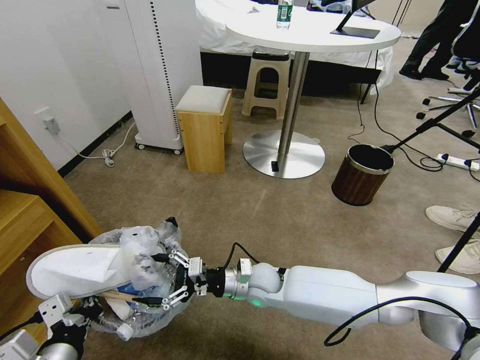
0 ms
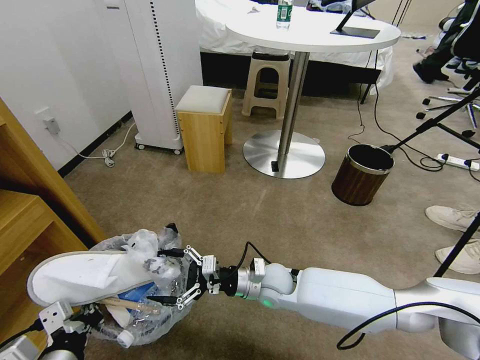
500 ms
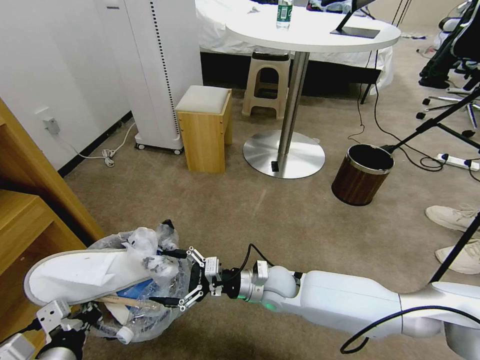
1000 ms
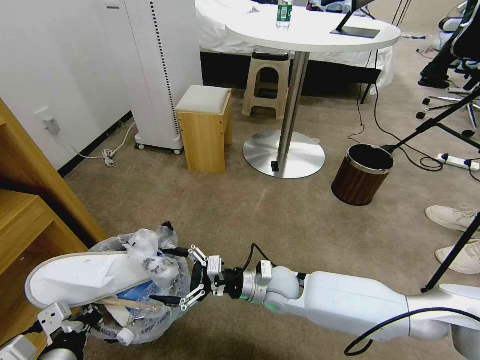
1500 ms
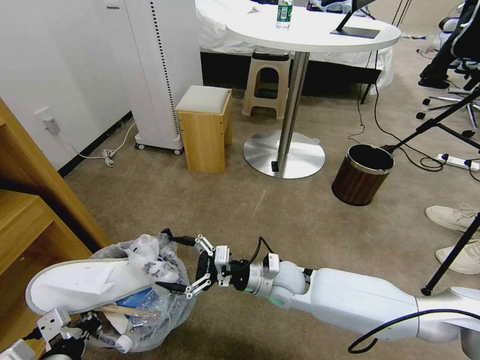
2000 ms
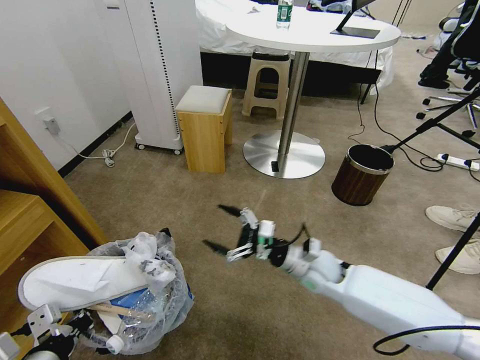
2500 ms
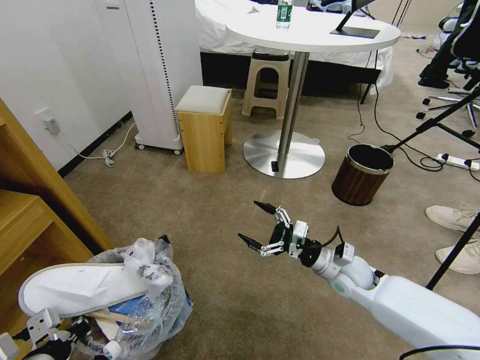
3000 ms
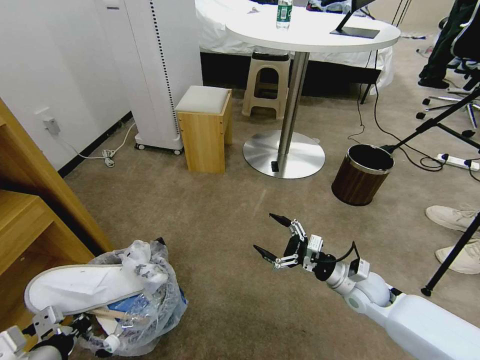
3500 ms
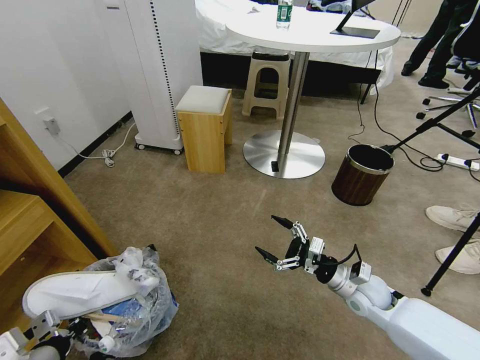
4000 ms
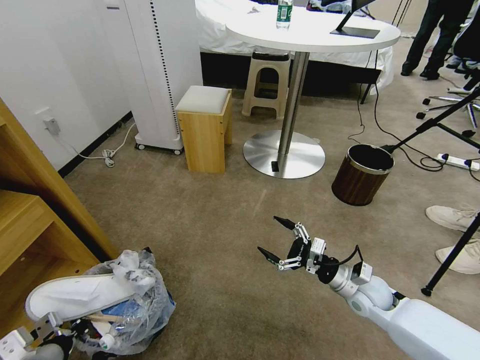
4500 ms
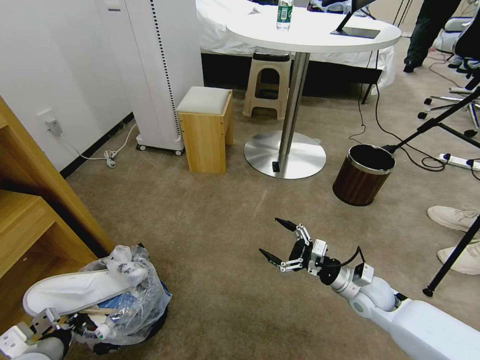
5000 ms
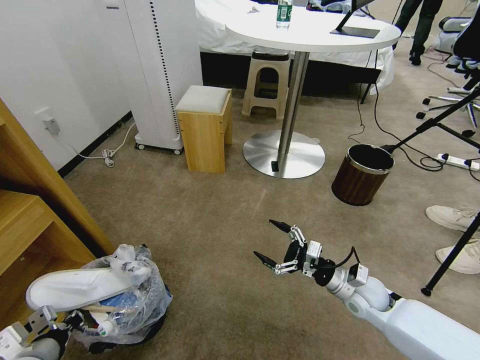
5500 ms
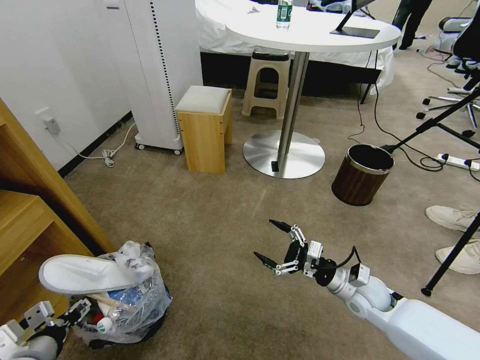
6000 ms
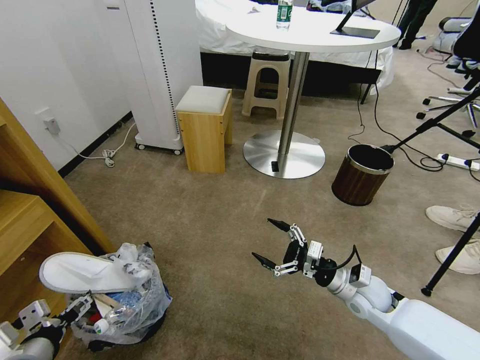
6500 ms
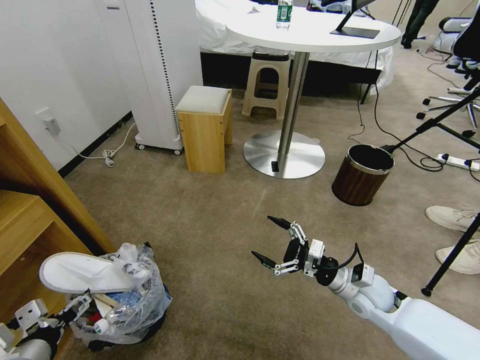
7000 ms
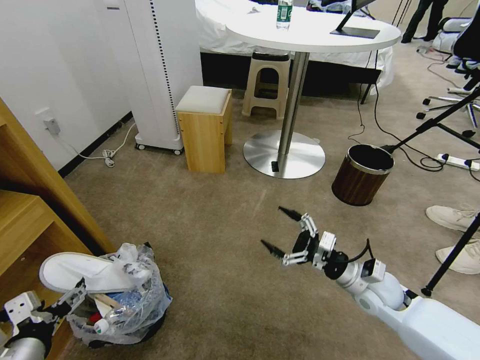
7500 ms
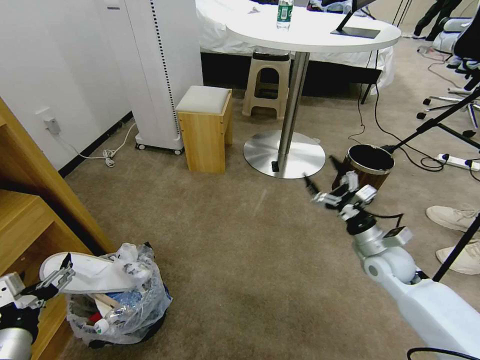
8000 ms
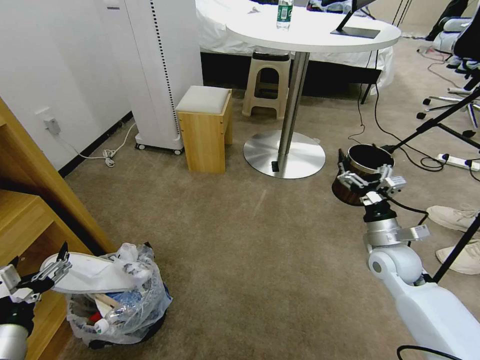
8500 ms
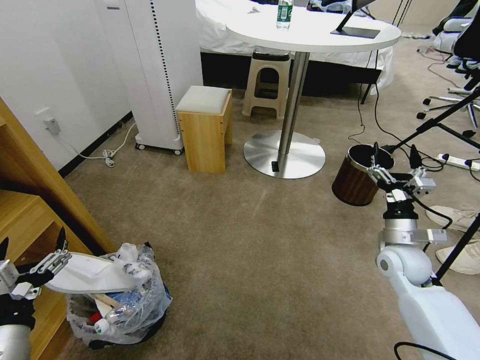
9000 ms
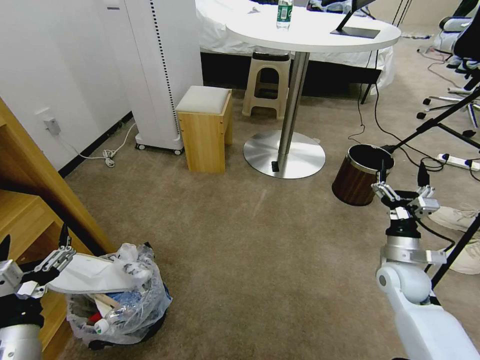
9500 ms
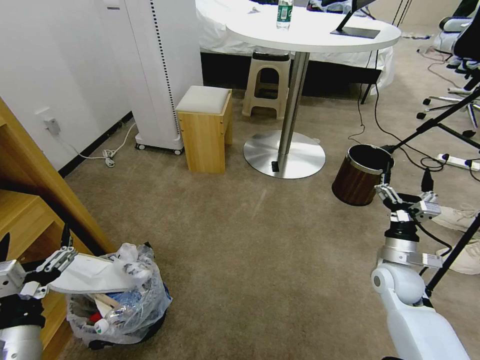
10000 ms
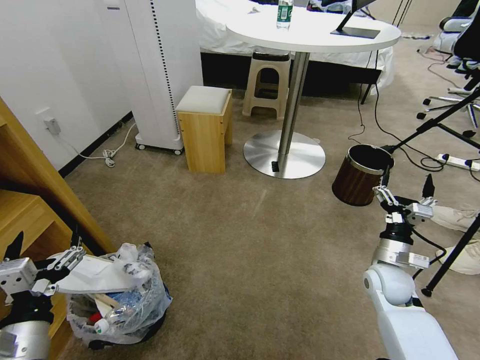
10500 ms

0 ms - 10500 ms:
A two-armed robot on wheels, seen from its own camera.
Task of the whole recording: Pick up the trash bin and place the garbage on the floor into it.
0 ms - 2000 ms: The right gripper is displaced to the right by about 5 cm.
2000 ms - 4000 ms: The right gripper is displaced to the right by approximately 20 cm; the left gripper travels to the left by some 5 cm.
4000 ms - 6500 ms: The left gripper opens.
6500 ms - 8500 ms: The right gripper moves upward and to the right, some 10 cm.
8500 ms - 10500 ms: The right gripper heads downward, covering roughly 5 cm.
